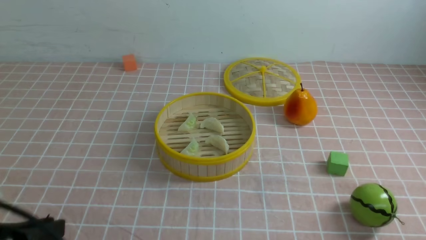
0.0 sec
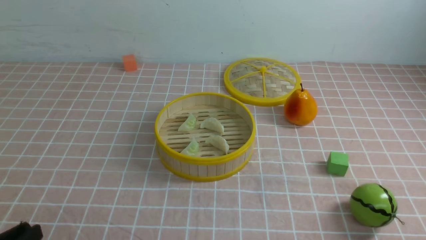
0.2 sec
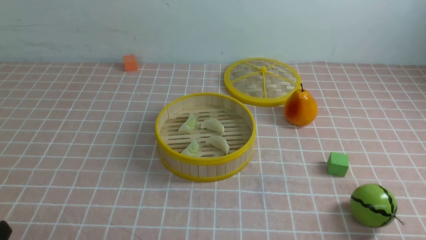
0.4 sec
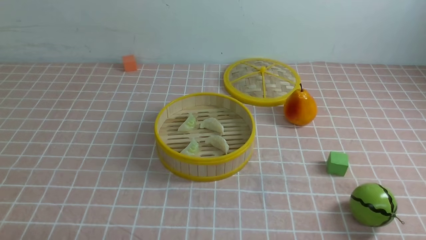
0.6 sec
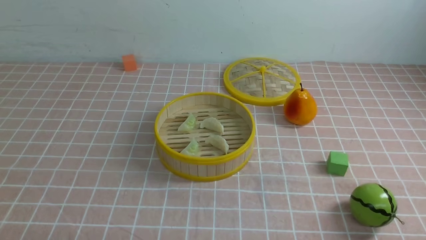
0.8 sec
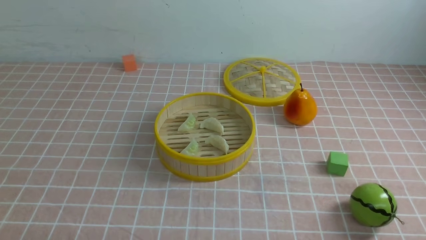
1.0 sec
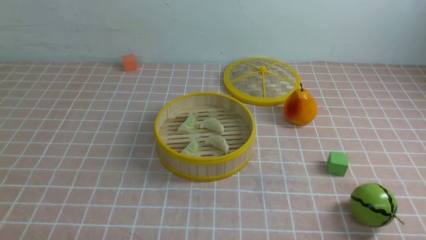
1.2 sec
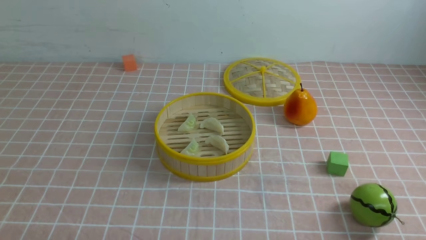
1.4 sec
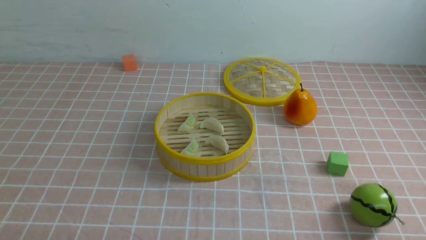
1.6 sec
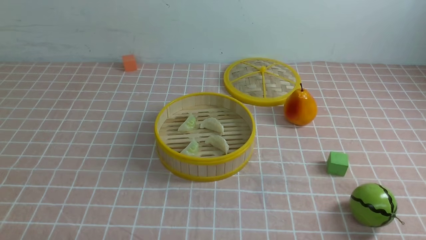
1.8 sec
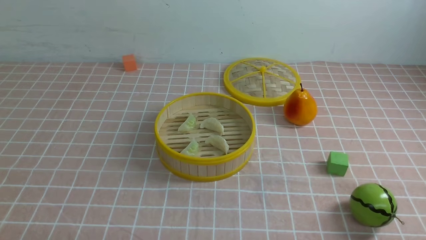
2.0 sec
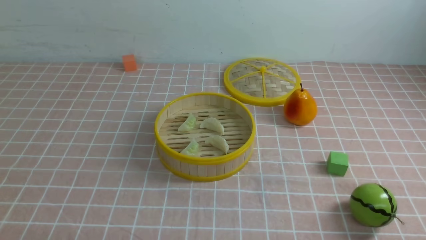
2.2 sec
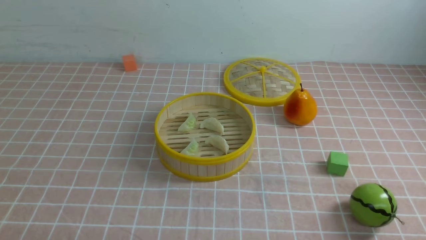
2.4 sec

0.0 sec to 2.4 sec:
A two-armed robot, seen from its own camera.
Task of the whole recording: put the dumplings into the steamer on the table with the pink tablecloth.
0.0 sec to 1.2 sec: The left gripper heads downward, covering roughly 10 cm.
1.2 sec to 2.4 sec: Both grippers stay about where they are.

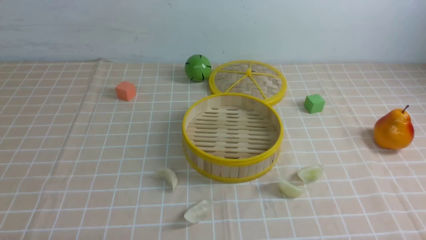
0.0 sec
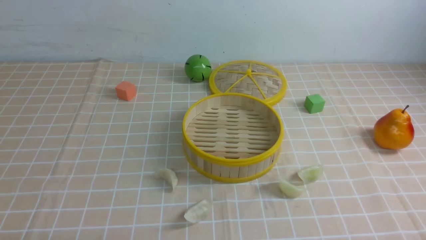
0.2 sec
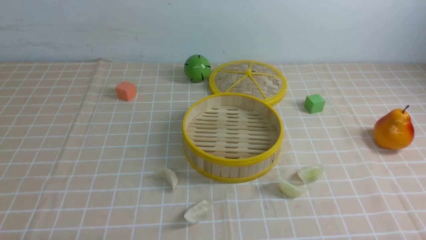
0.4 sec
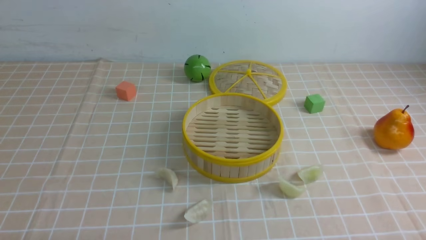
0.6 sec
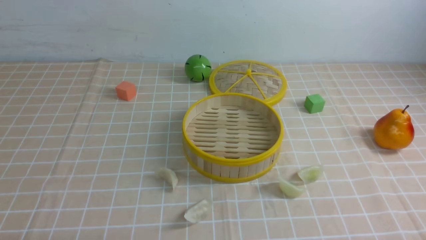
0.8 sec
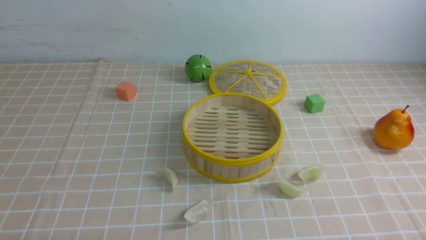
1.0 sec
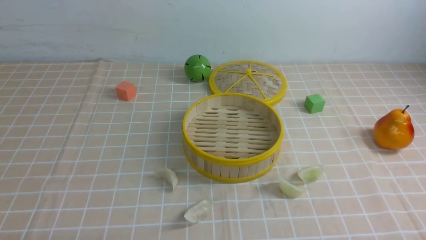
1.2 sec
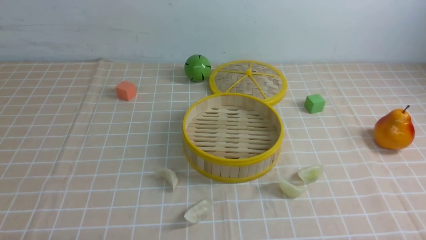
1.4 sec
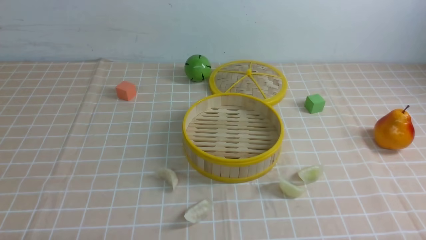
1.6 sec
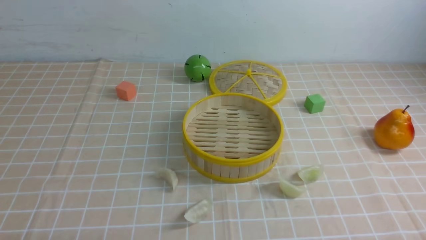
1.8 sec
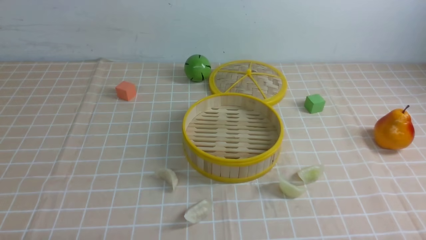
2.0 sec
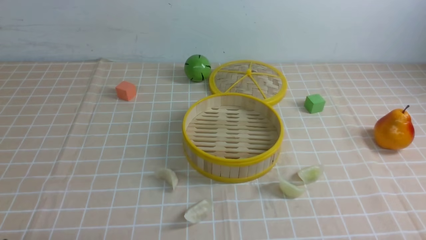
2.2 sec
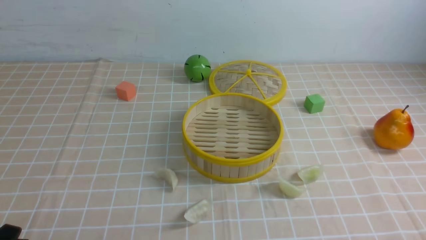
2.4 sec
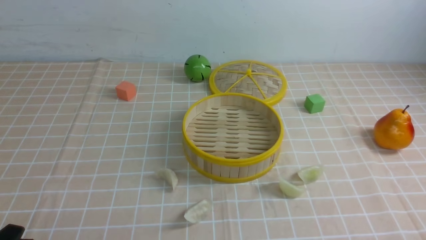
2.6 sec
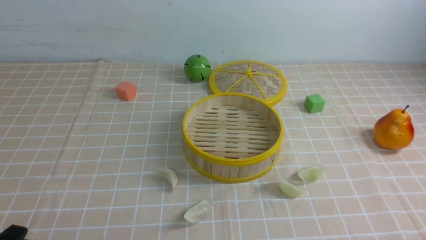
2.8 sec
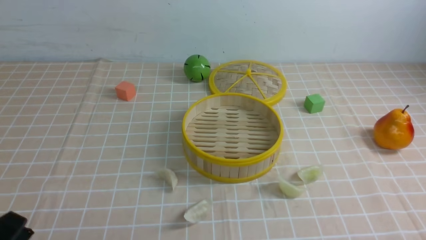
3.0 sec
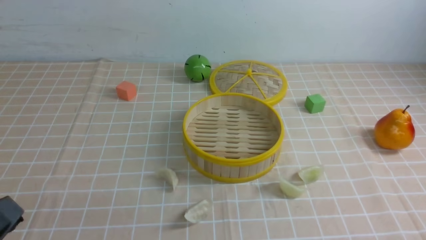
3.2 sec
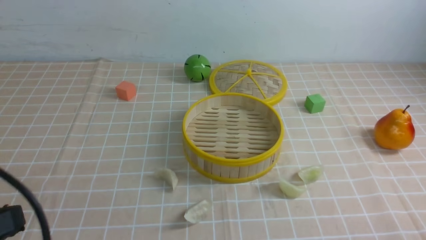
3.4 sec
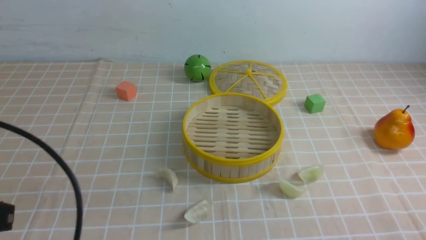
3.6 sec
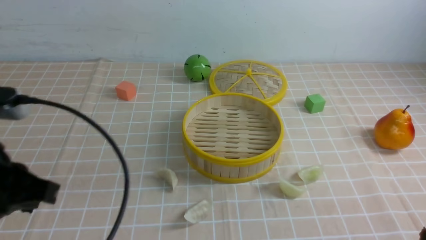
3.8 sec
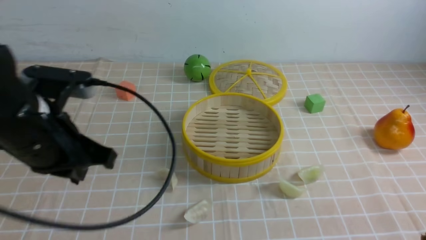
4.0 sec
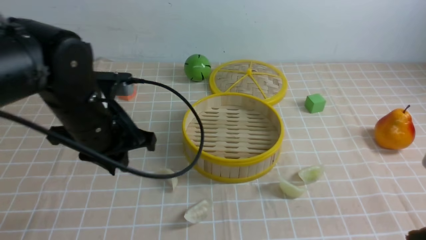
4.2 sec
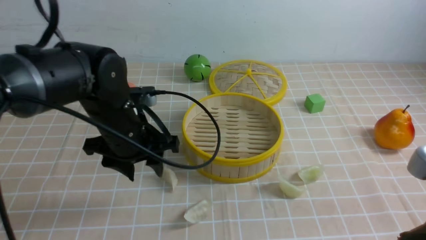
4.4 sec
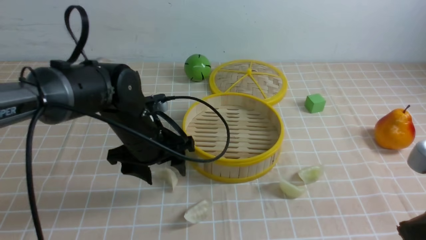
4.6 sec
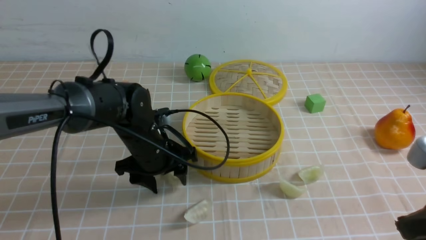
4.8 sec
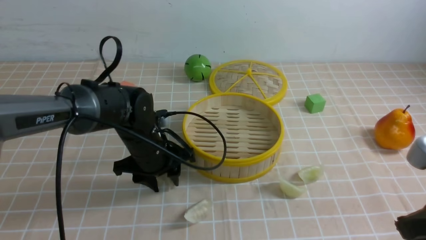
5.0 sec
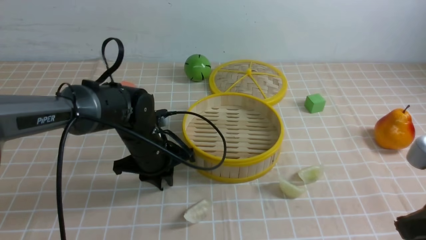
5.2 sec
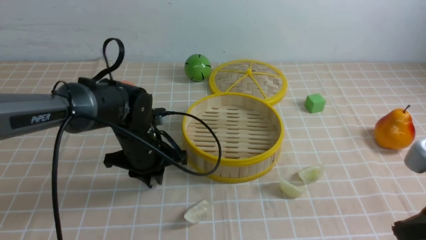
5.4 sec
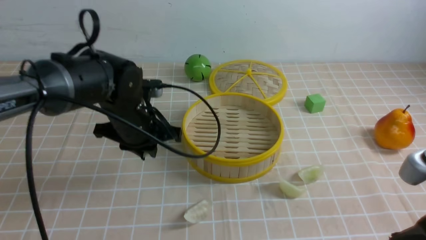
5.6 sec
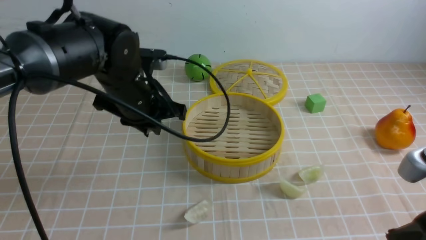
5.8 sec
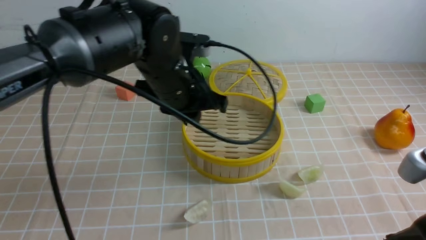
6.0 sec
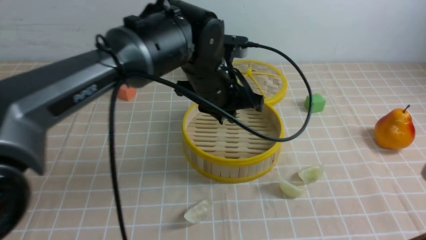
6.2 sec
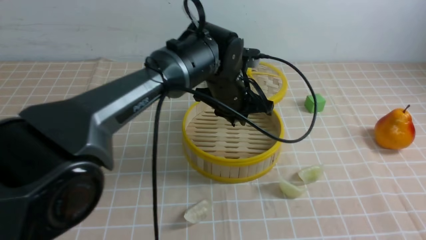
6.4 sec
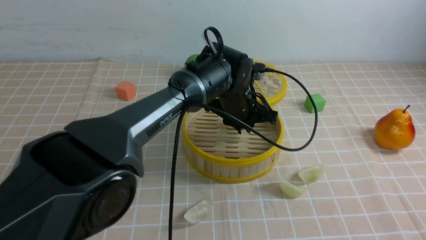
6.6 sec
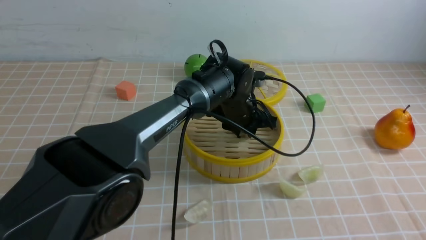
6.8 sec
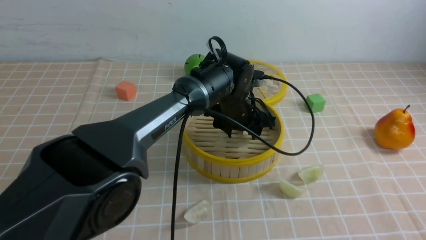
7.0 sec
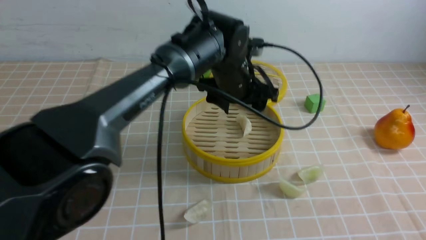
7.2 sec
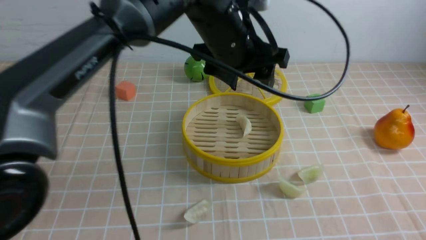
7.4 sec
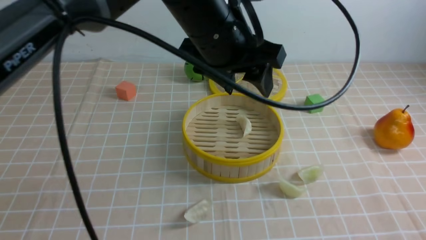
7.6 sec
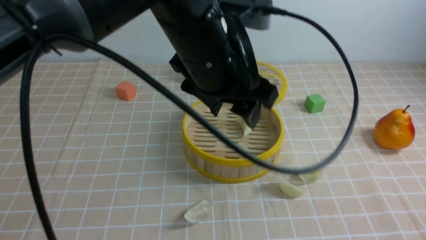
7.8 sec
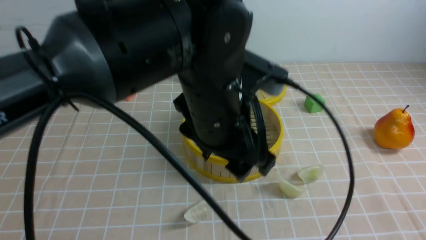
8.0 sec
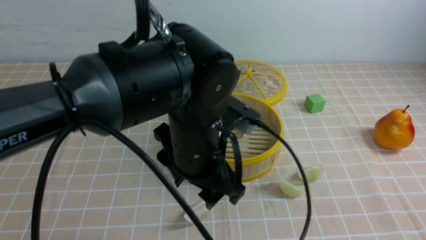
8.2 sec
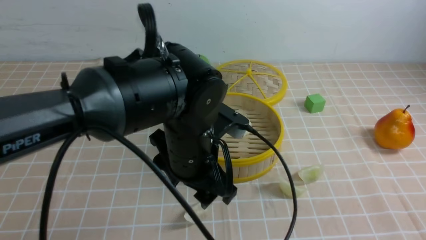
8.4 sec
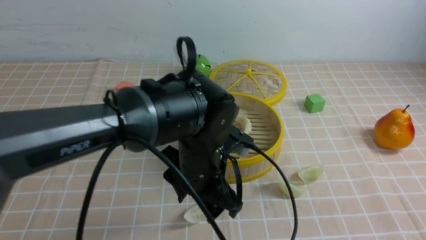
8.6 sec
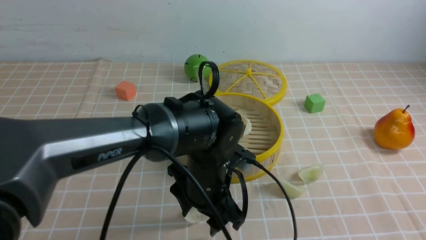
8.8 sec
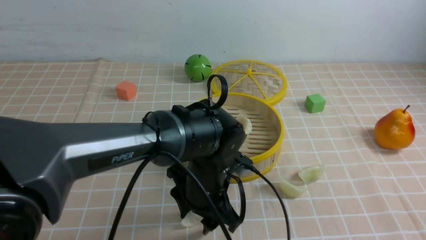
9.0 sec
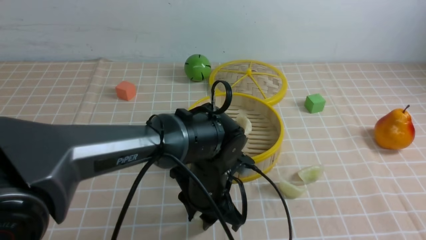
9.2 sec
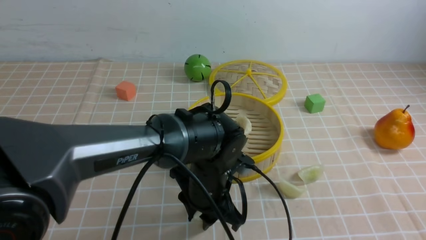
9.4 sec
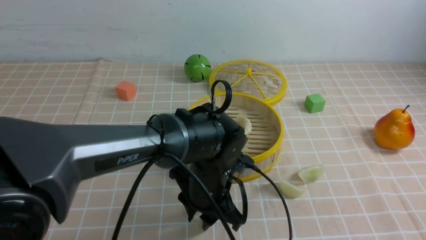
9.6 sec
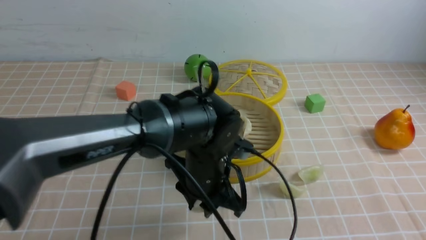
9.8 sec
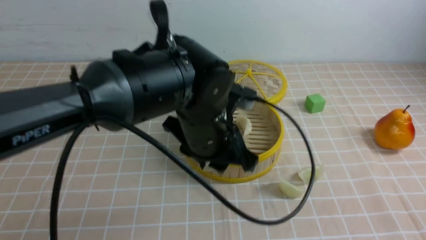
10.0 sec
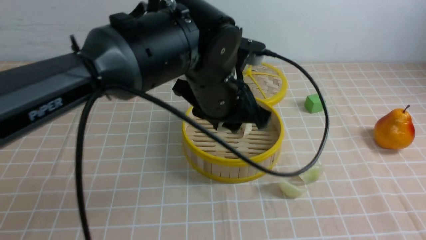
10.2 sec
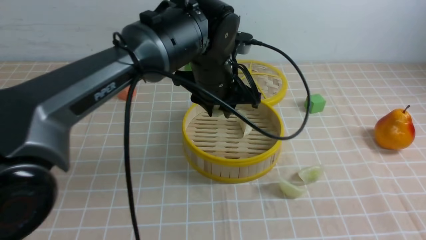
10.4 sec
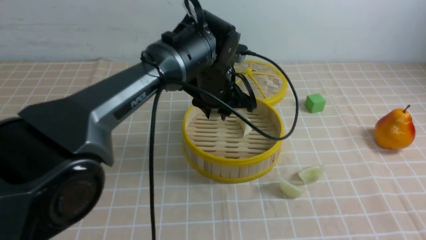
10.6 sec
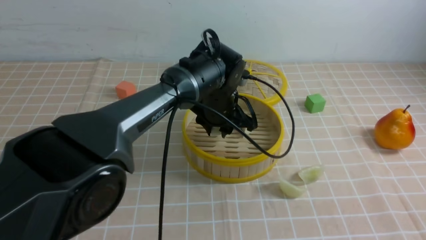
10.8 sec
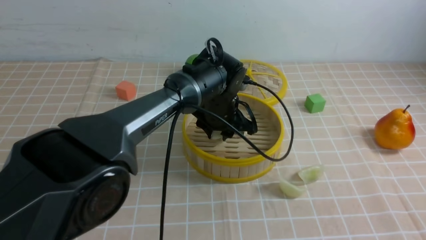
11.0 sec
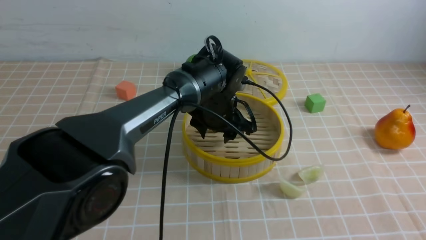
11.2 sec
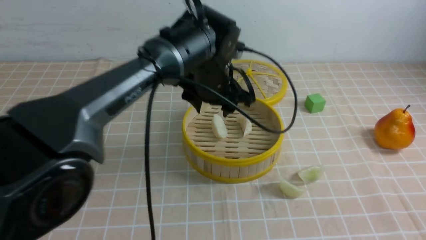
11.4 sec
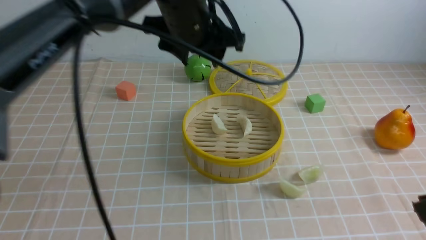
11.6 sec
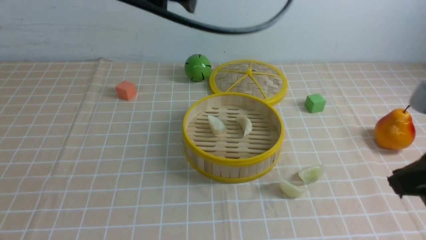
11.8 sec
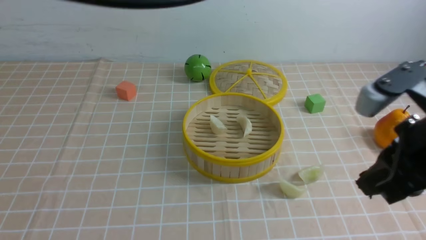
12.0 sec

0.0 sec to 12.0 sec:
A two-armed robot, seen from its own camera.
Task of the whole recording: put the dumplings into the steamer on the table with the brown tablecloth.
Step, 0.0 sec to 5.2 sec: use the left arm to grab a dumpling.
Step, 5.4 sec to 7.0 sec: use the left arm to put the dumpling into the steamer.
Step, 7.2 sec to 9.2 sec: use the left arm to grab a dumpling.
Step, 9.4 sec to 11.2 sec: use the left arm to put the dumpling into the steamer.
0.0 sec to 1.6 sec: Both grippers stay about where they are.
1.6 sec to 3.0 sec: The left gripper goes roughly 5 cm upward.
3.0 sec to 4.4 sec: The right gripper goes roughly 15 cm upward and forward, and closes. Meanwhile the left gripper moves forward and to the right, approximately 30 cm, and opens up.
4.4 sec to 6.0 sec: The left gripper moves to the right and upward, some 10 cm, and closes its fingers.
6.0 sec to 7.6 sec: The right gripper heads backward, covering roughly 5 cm; the left gripper heads upward, covering approximately 10 cm, and opens its fingers.
7.6 sec to 9.0 sec: The left gripper heads downward, covering some 20 cm.
9.0 sec to 10.4 sec: The left gripper moves upward and forward, approximately 15 cm.
10.4 sec to 12.0 sec: The right gripper moves forward, some 10 cm. The left gripper travels upward, backward and to the left by about 30 cm, and opens and closes again.

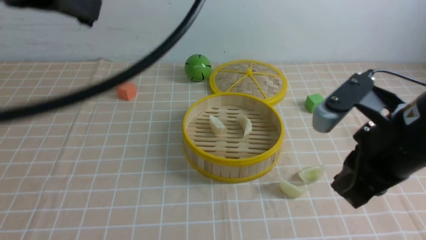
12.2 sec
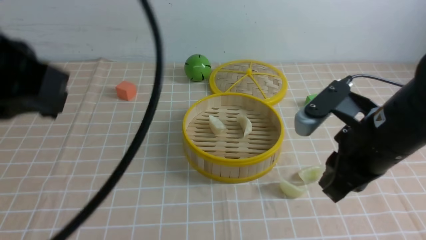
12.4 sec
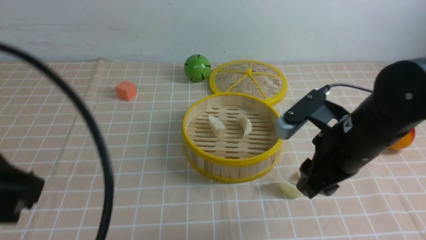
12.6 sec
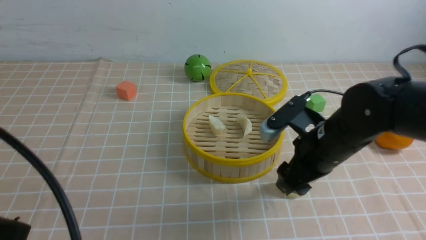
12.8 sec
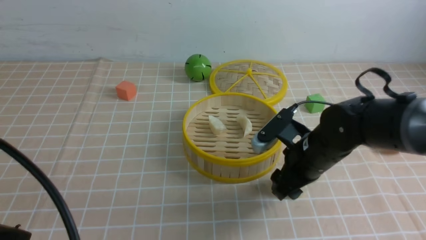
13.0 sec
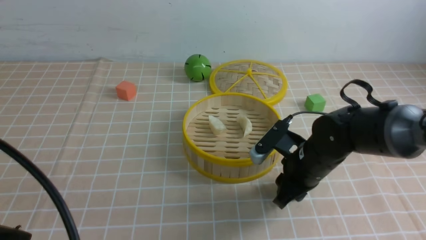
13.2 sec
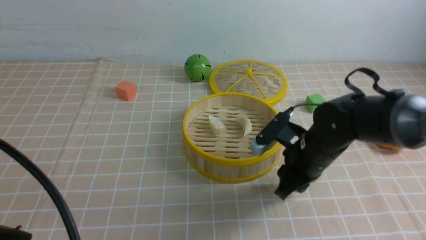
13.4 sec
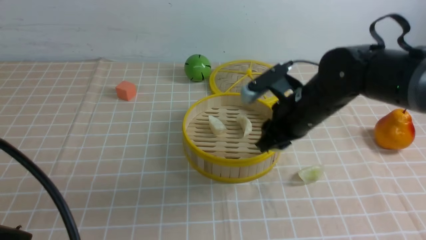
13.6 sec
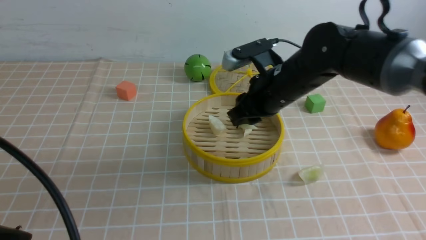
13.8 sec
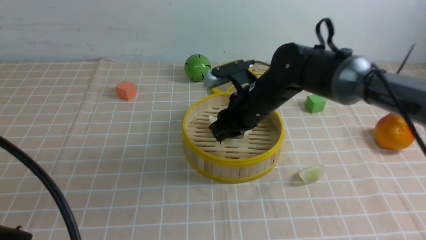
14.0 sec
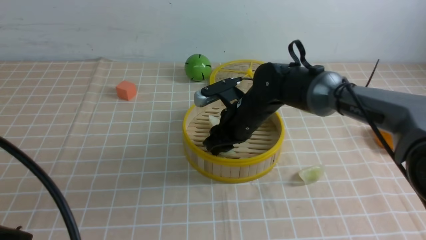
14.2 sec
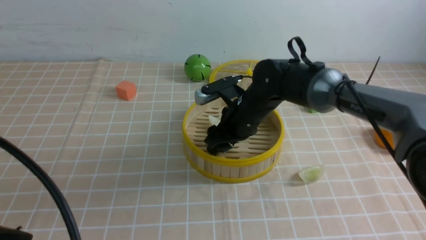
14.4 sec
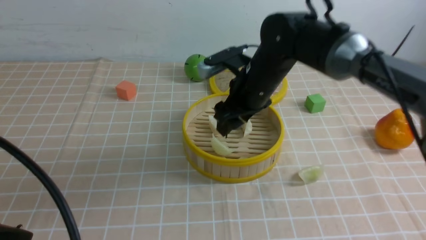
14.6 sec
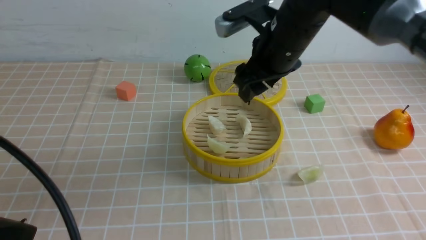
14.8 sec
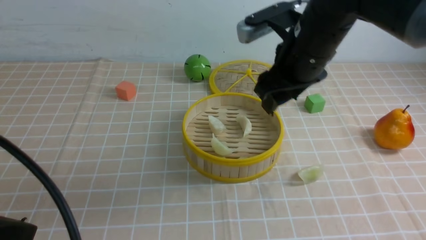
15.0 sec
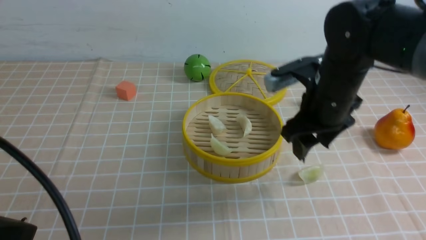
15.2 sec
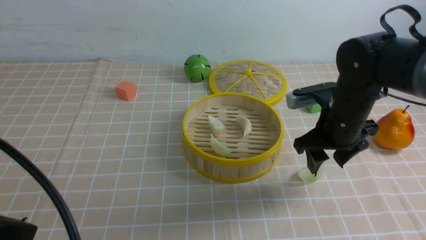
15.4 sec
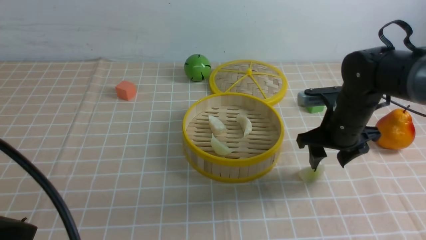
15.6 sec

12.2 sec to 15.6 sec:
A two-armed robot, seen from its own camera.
Task of the whole recording: put the dumplings into the steamer on the table with the brown tablecloth.
Step, 12.2 sec to 13.2 sec: use the right arm to grab a dumpling.
Step, 13.4 sec to 14.6 sec: use the right arm to put the dumpling into the steamer.
12.2 sec to 13.8 sec: The right gripper shifts roughly 20 cm forward, to the left and downward, and opens and closes again; the left gripper is displaced downward, backward and to the left by approximately 15 cm.
13.8 sec to 15.6 sec: The right gripper shifts some 10 cm to the right, and opens.
